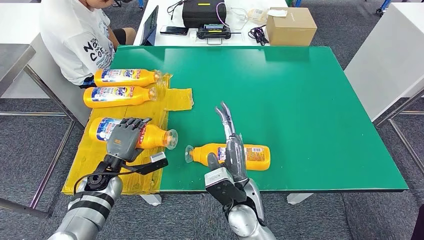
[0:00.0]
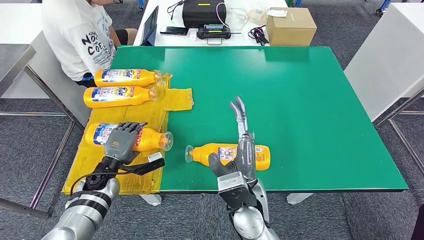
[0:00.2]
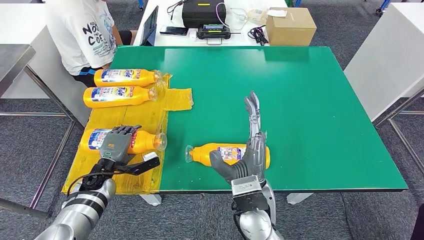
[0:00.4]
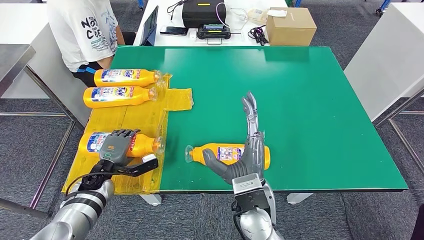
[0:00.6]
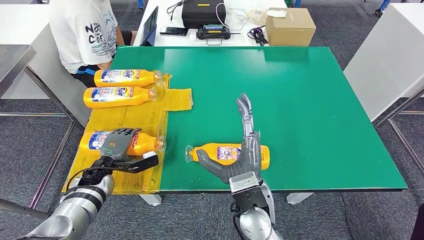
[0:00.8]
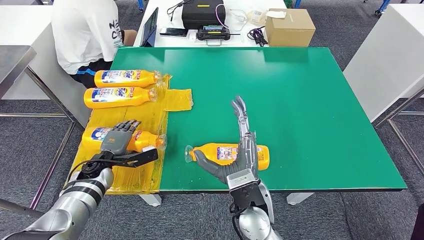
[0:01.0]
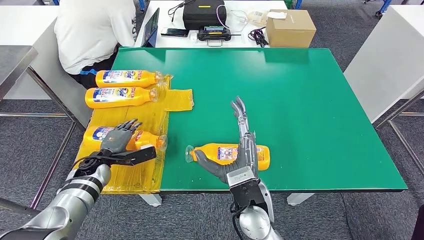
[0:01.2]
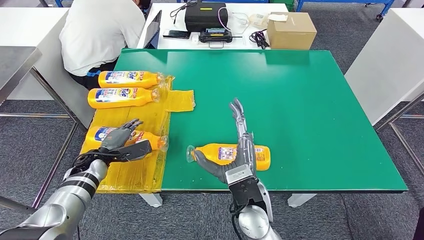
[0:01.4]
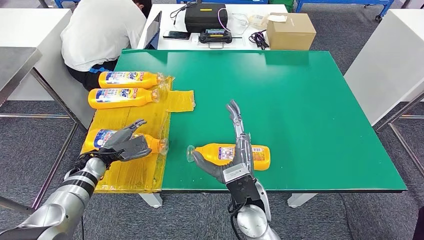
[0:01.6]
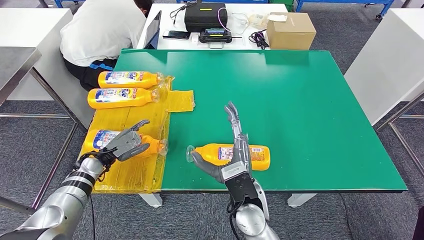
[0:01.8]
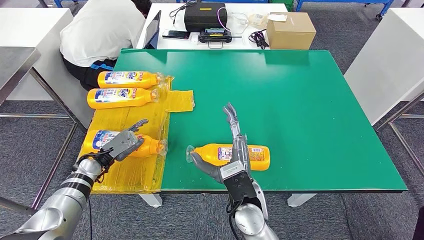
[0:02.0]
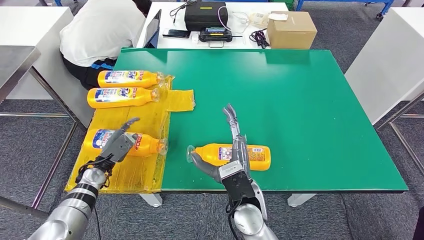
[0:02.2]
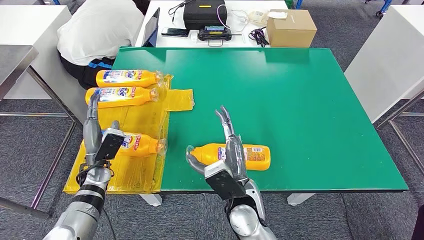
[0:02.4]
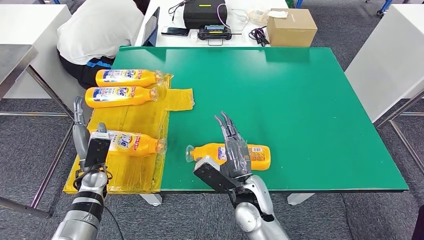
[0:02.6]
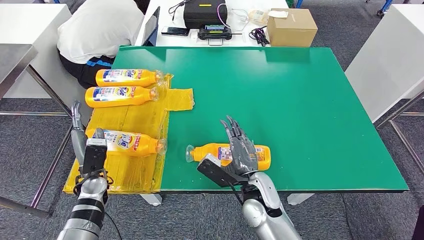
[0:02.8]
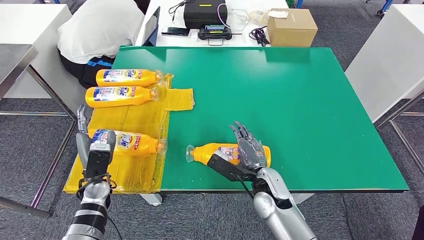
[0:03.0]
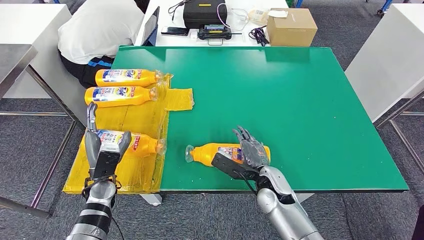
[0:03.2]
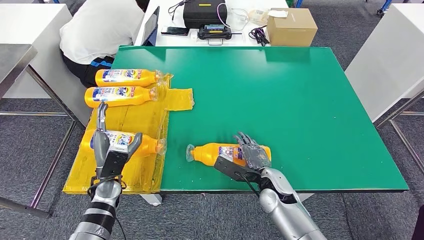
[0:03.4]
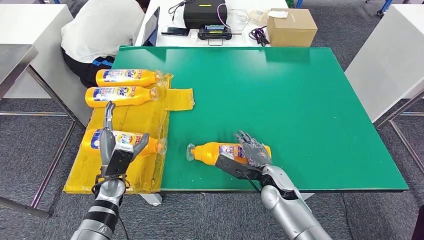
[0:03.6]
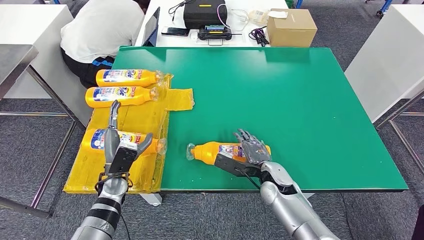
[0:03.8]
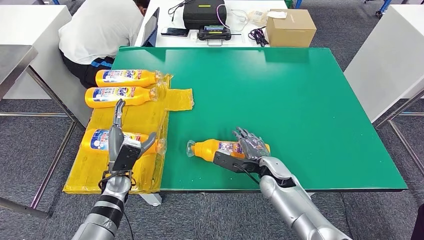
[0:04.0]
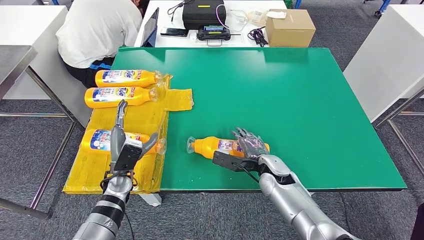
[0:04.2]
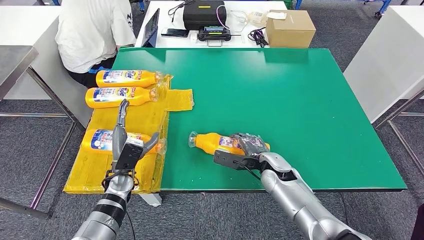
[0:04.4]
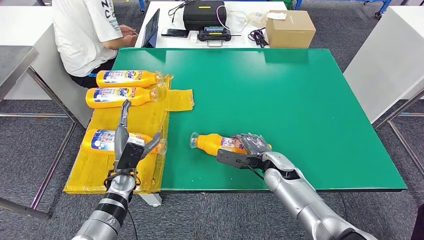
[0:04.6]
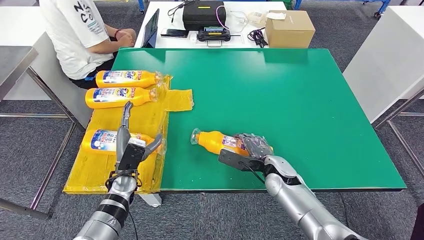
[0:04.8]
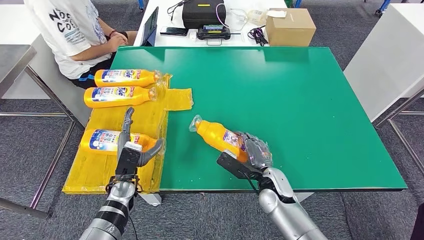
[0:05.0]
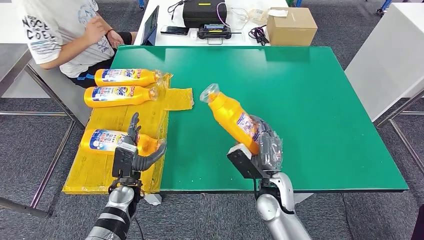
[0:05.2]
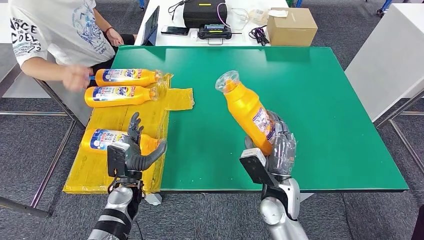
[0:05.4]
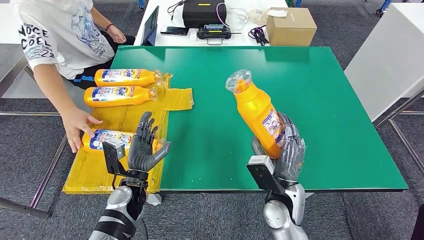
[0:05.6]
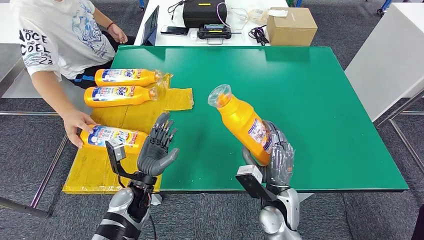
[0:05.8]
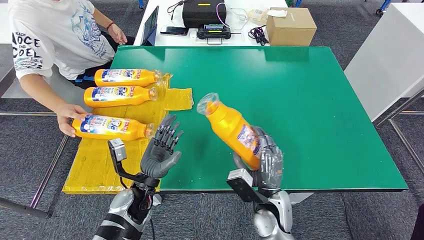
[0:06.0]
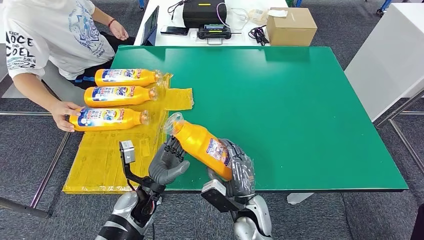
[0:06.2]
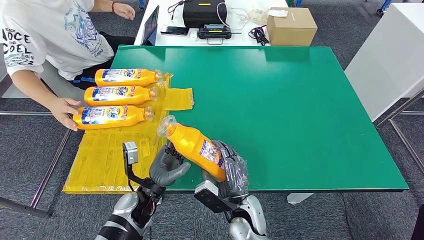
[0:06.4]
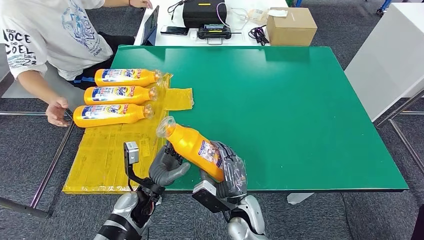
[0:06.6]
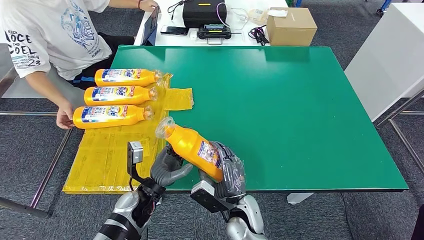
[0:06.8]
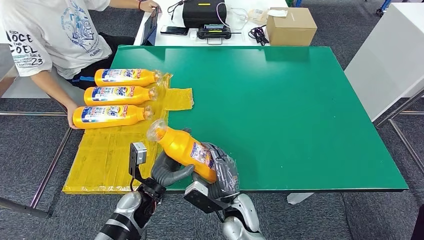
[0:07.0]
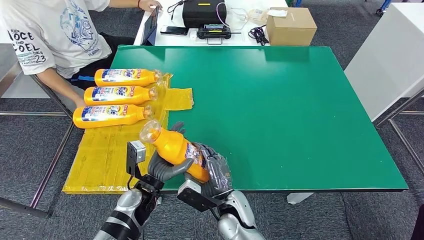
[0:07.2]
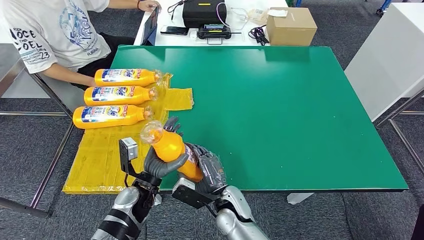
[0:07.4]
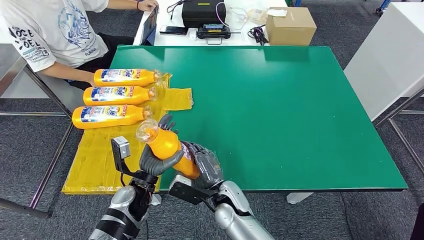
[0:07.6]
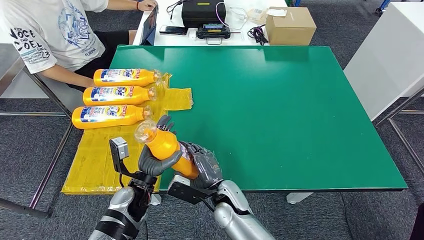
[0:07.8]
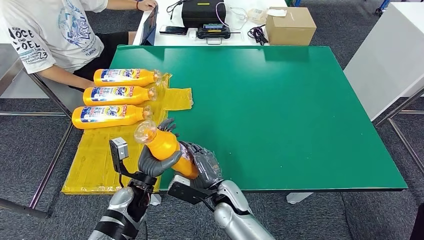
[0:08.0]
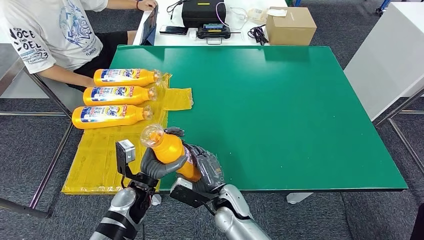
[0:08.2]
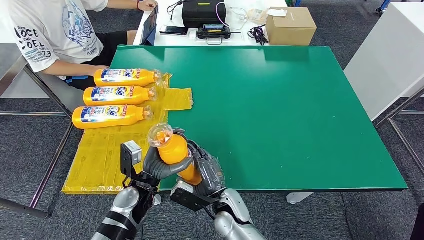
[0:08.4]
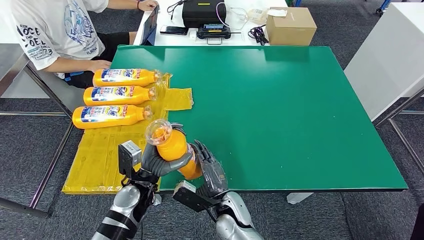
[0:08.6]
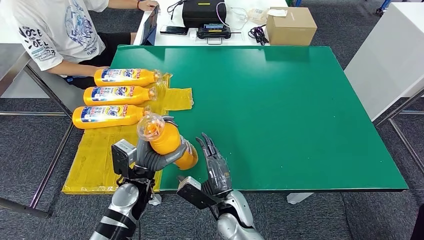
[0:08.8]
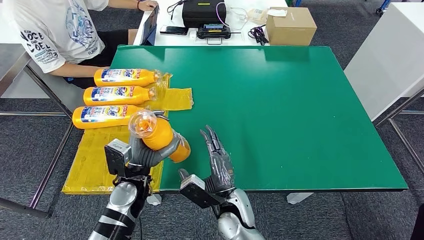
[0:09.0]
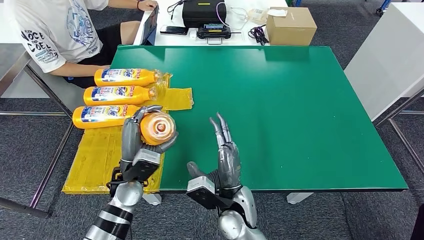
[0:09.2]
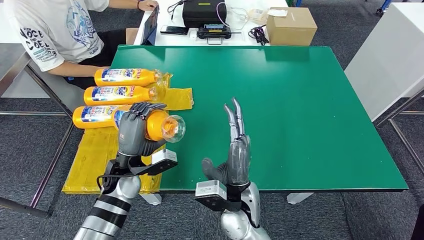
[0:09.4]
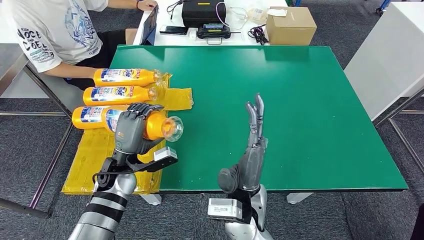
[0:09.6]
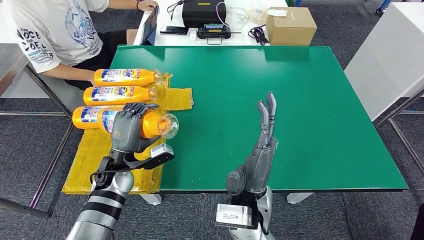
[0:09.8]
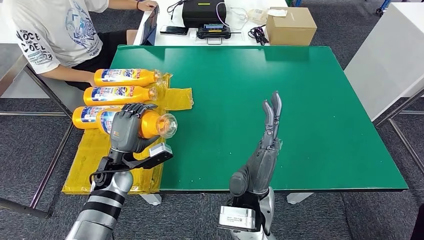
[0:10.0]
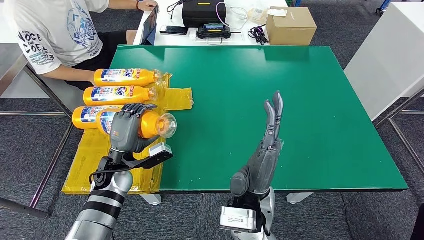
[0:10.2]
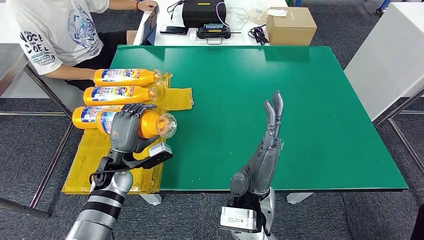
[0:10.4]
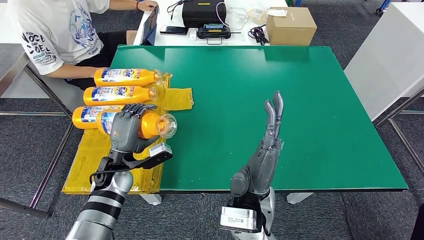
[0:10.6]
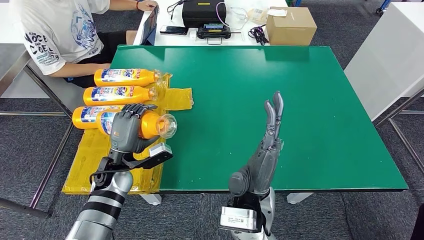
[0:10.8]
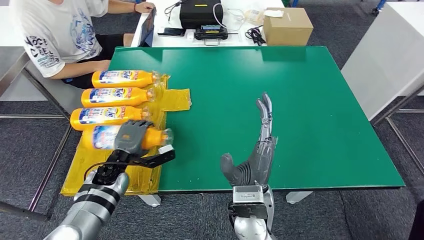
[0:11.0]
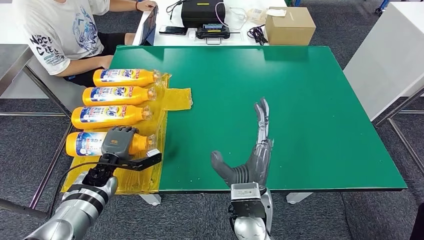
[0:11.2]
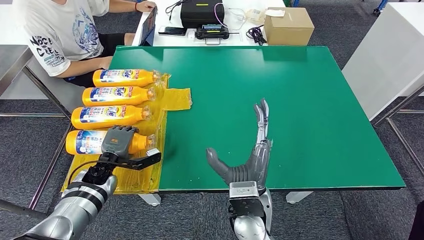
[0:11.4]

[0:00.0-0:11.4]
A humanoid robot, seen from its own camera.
Step, 0:01.0 to 0:07.2: Pick up the fast-moving consumer goods bottle from the table.
Step, 0:07.4 to 0:11.4: Flip the fast-moving consumer goods bottle to the front side.
0:02.8 to 0:04.2: The right hand moves forward and to the right, some 10 cm, while the left hand shifts approximately 5 cm to the right.
0:07.2 to 0:08.6: The hands move only a little.
0:08.6 to 0:10.0: The right hand heads upward, covering about 15 cm; the left hand shifts approximately 5 cm to the left.
